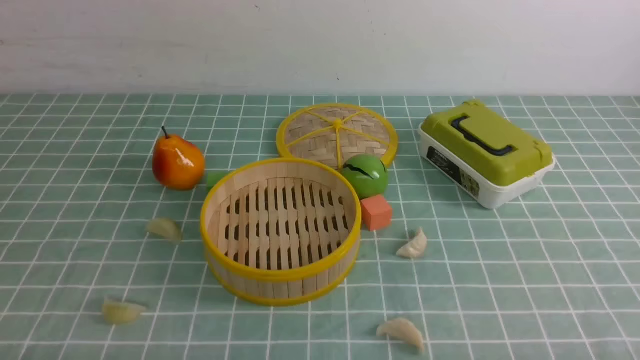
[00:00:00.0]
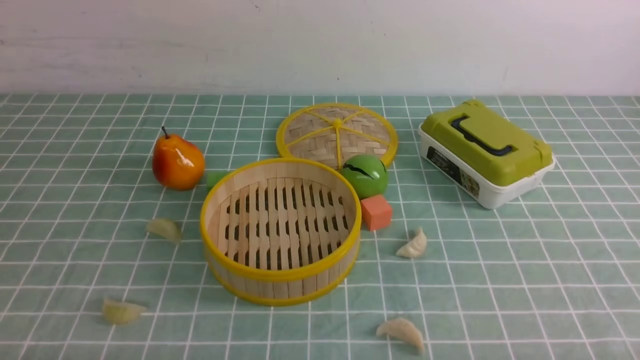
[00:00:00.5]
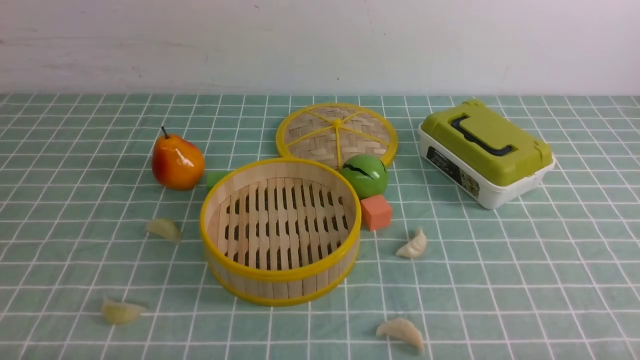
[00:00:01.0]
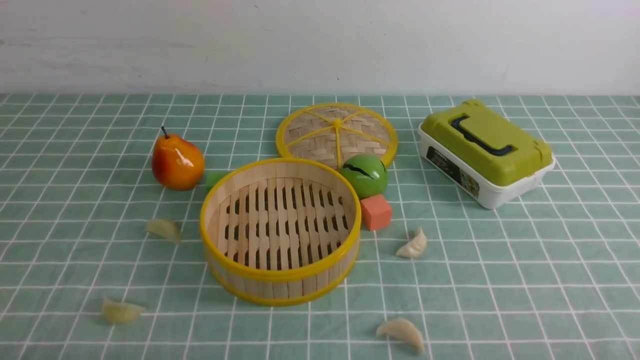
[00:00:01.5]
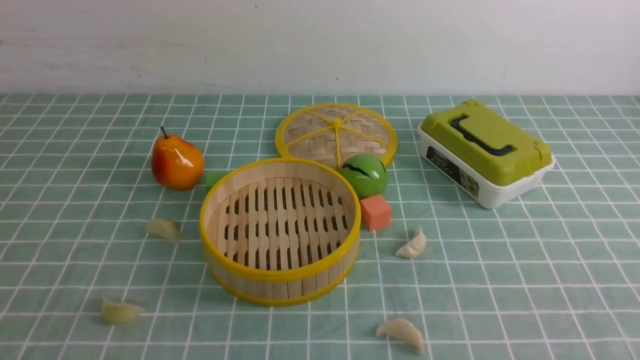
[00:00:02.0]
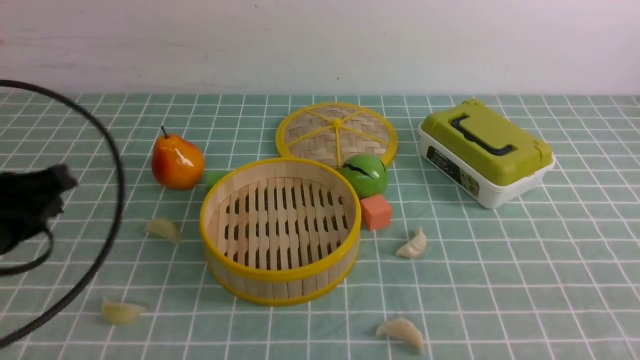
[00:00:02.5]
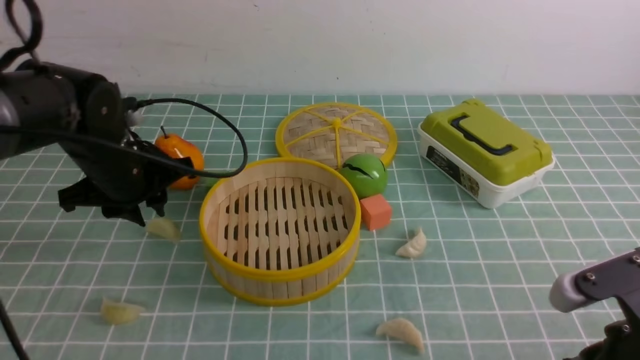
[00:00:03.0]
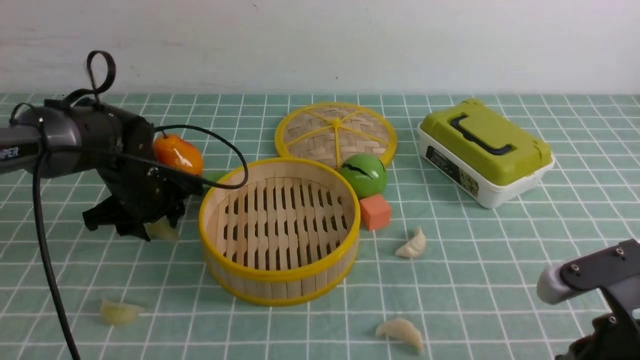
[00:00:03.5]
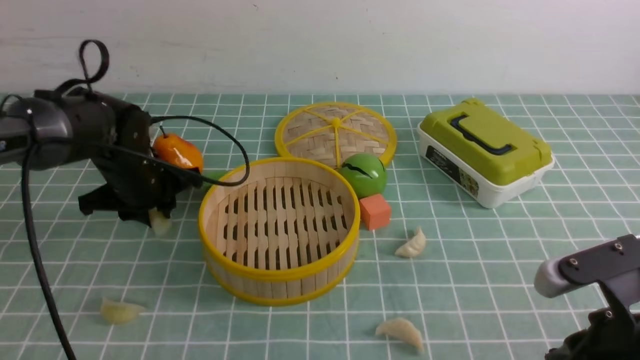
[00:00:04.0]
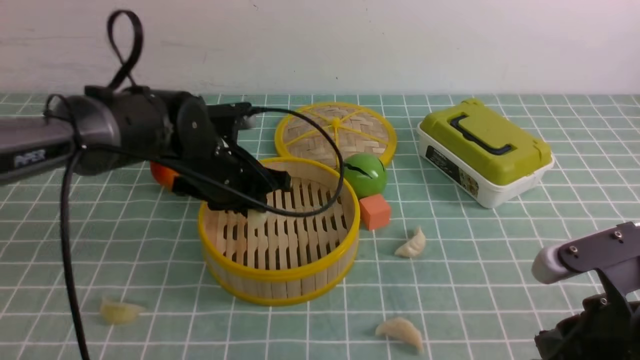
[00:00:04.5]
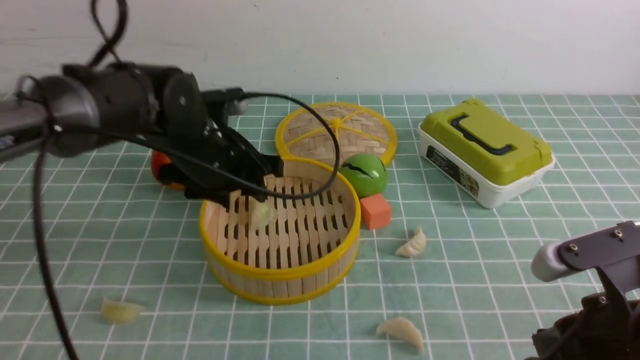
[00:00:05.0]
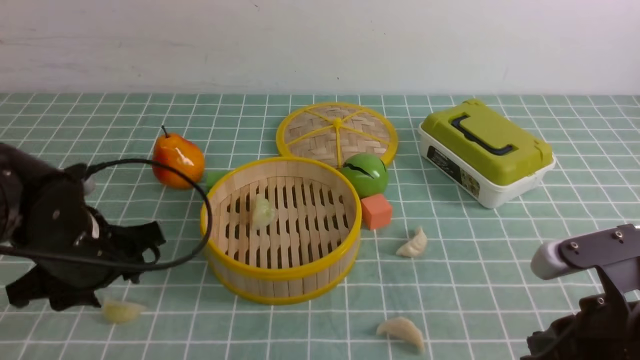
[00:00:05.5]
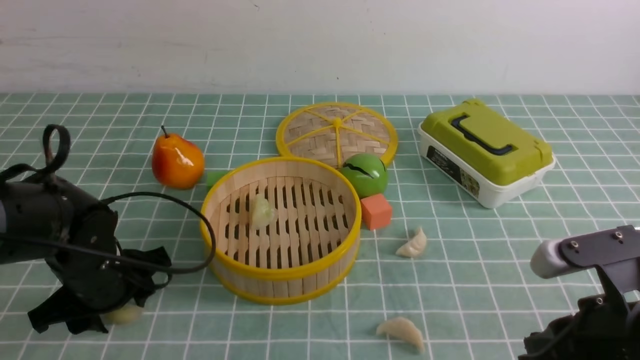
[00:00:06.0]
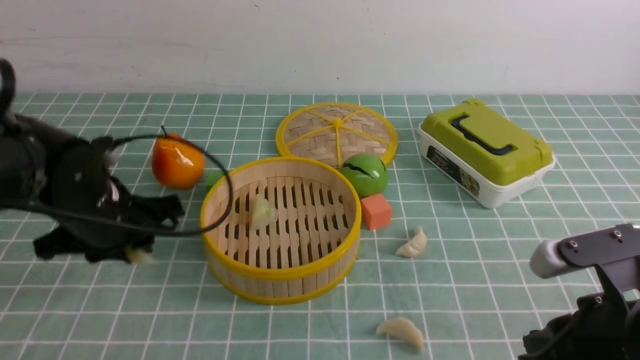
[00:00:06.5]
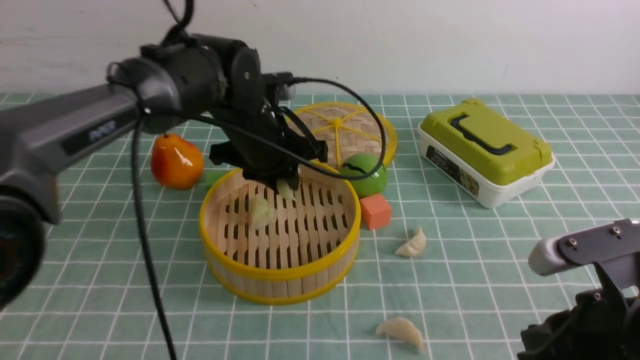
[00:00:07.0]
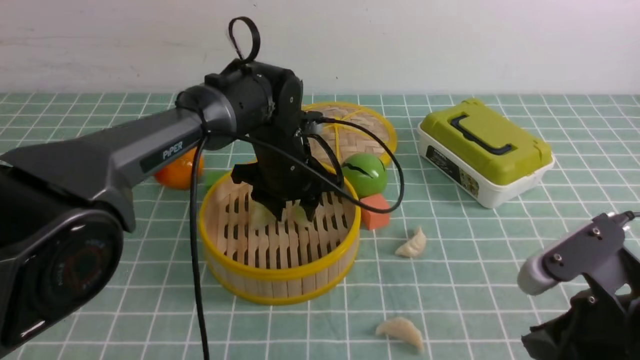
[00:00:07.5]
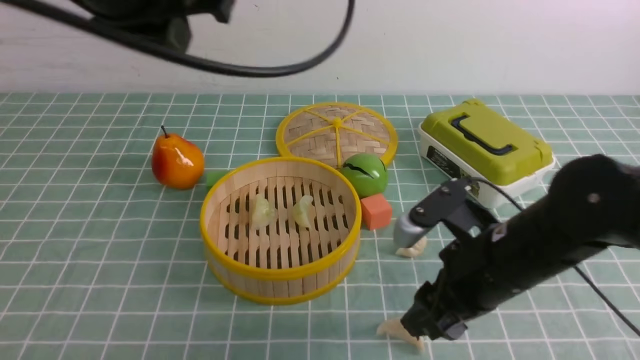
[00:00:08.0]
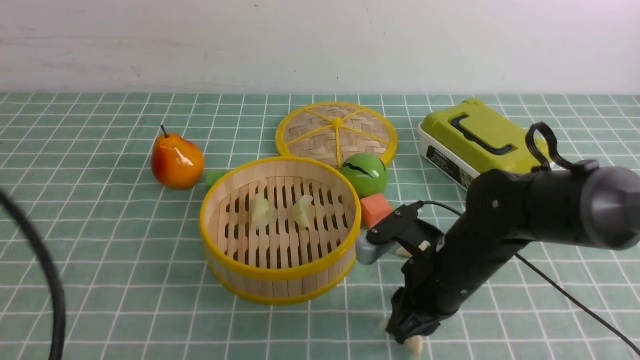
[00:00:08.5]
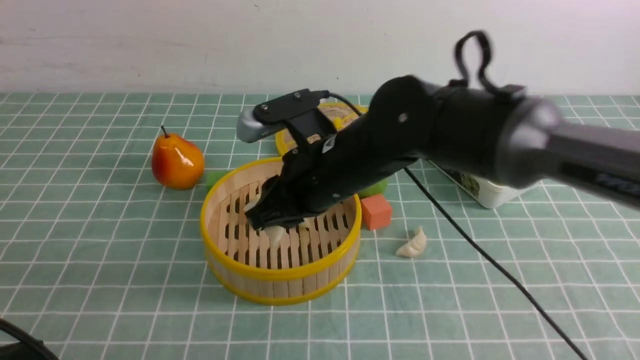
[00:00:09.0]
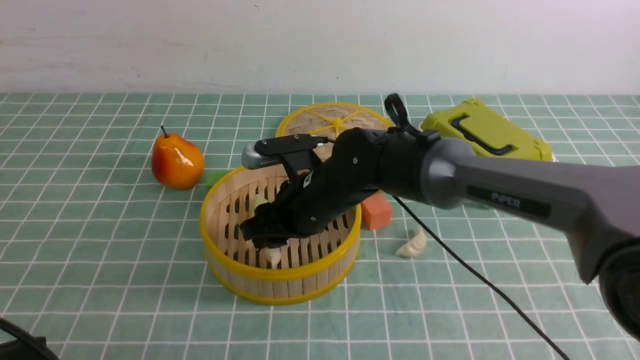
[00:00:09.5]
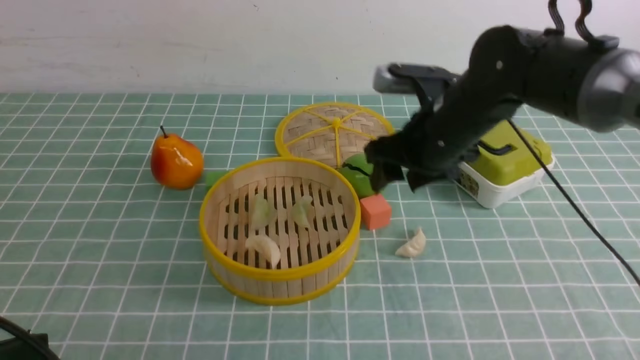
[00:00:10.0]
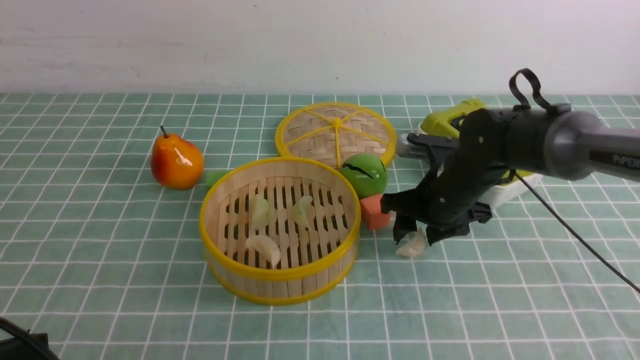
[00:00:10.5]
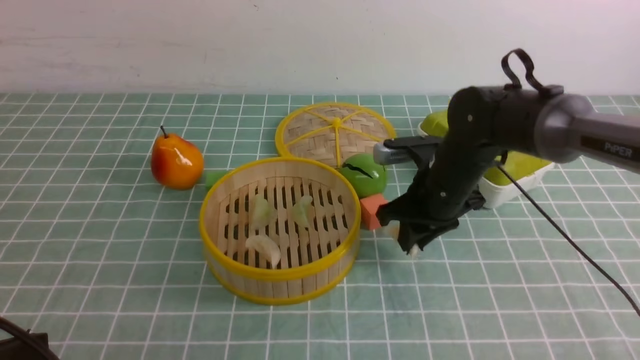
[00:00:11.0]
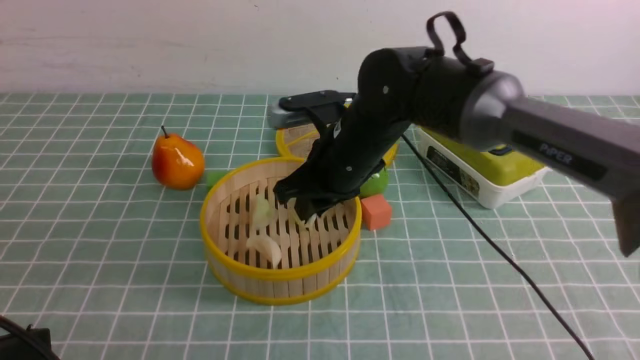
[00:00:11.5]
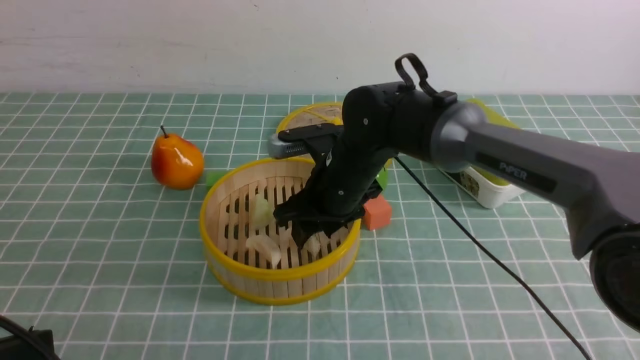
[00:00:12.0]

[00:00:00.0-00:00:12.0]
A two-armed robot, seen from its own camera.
Task of the whole recording: put the dumplings into the steamer on the table with the blue tablecloth.
Step, 00:00:00.0 to 00:00:03.5: use the left arm to grab a dumpling.
Step, 00:00:04.0 to 00:00:05.0: use the left arm to put the dumpling into the steamer.
Step, 00:00:05.5 to 00:00:06.0: use the left arm to grab a dumpling.
Step, 00:00:06.5 to 00:00:07.5: use the left arm to put the dumpling into the steamer.
Step, 00:00:08.5 to 00:00:09.5: use the right arm to put the dumpling into the steamer.
Step, 00:00:10.0 to 00:00:10.5: use the right arm to grab a dumpling.
00:00:02.0 to 00:00:04.0: The right gripper travels forward, to the left and downward by about 15 cm, while the left gripper is displaced forward by roughly 35 cm.
00:00:04.0 to 00:00:06.0: The left gripper travels backward by roughly 10 cm, and opens.
00:00:06.0 to 00:00:08.0: The right gripper is displaced forward and to the left by approximately 10 cm, and opens up. Meanwhile the left gripper is displaced upward by approximately 30 cm, and closes.
00:00:08.0 to 00:00:10.0: The left gripper moves downward, backward and to the left, about 30 cm; the right gripper travels forward by roughly 15 cm, travels to the left and back again, roughly 15 cm each way, and closes, then opens again.
00:00:10.0 to 00:00:12.0: The right gripper travels to the left by approximately 10 cm, and closes and opens again.

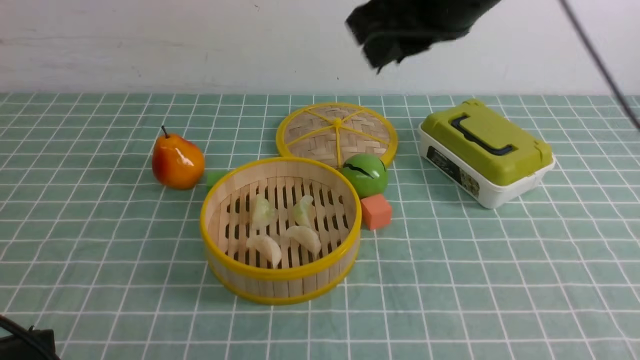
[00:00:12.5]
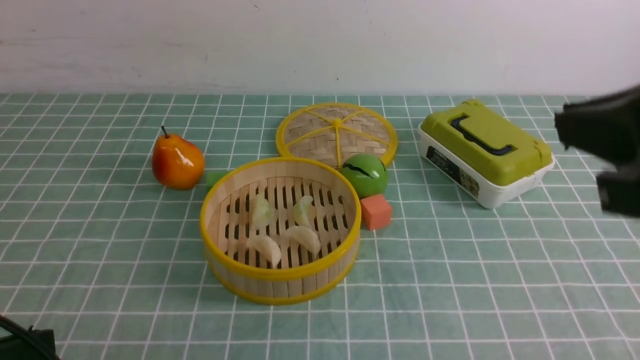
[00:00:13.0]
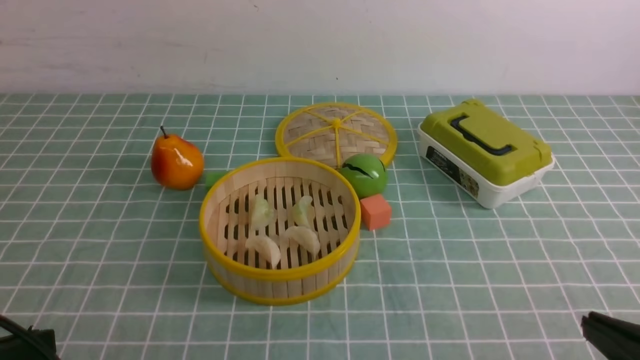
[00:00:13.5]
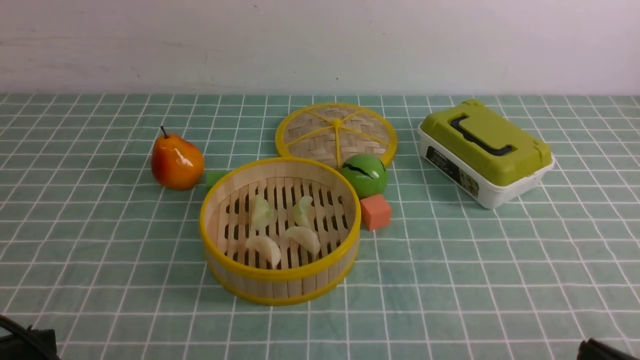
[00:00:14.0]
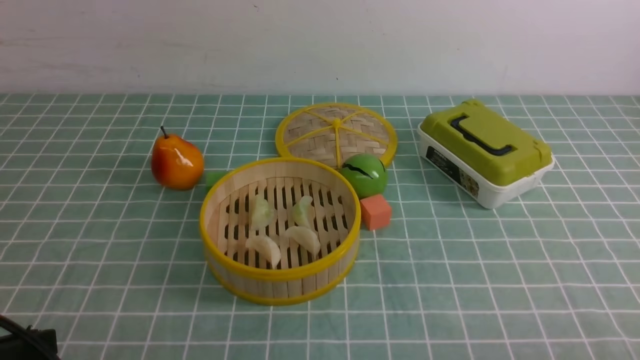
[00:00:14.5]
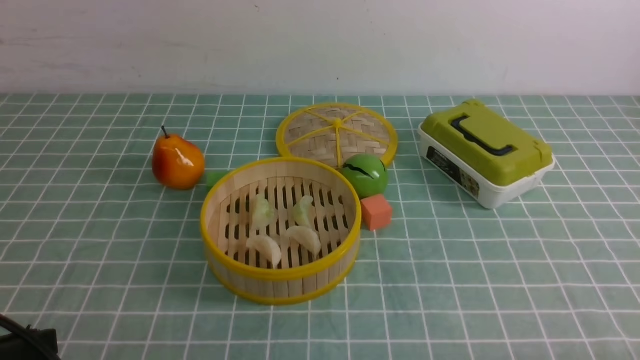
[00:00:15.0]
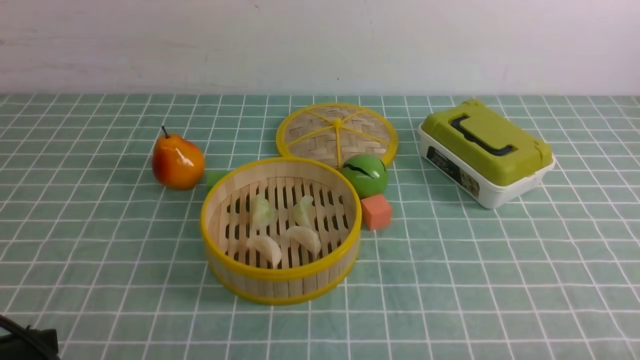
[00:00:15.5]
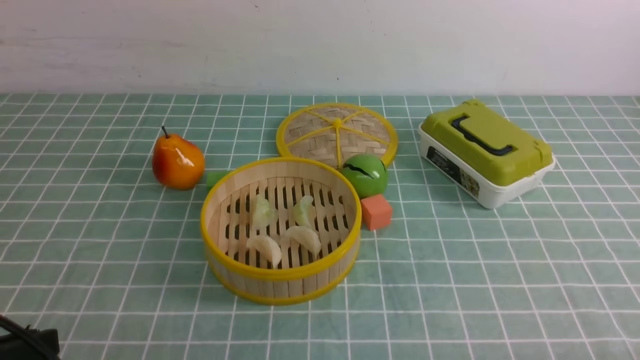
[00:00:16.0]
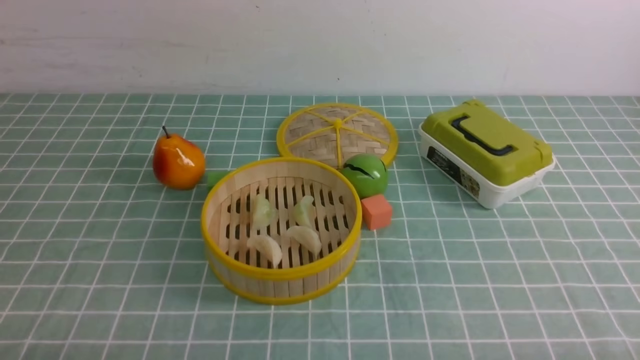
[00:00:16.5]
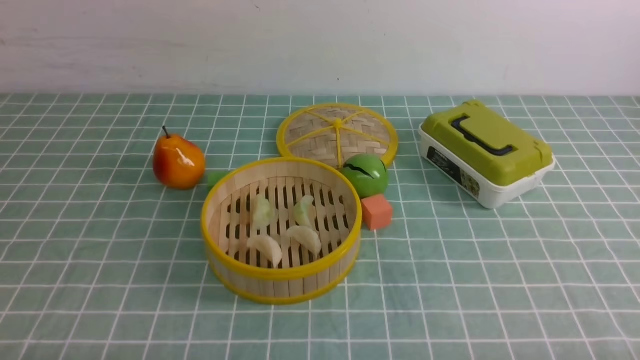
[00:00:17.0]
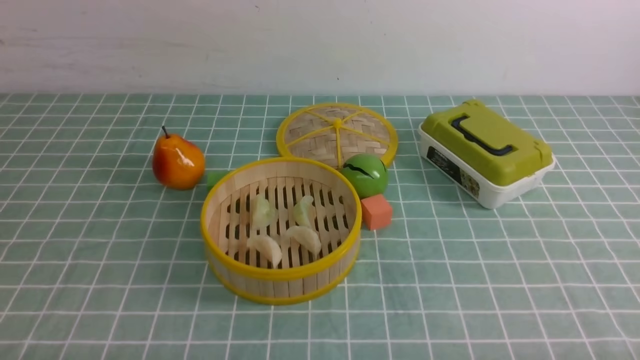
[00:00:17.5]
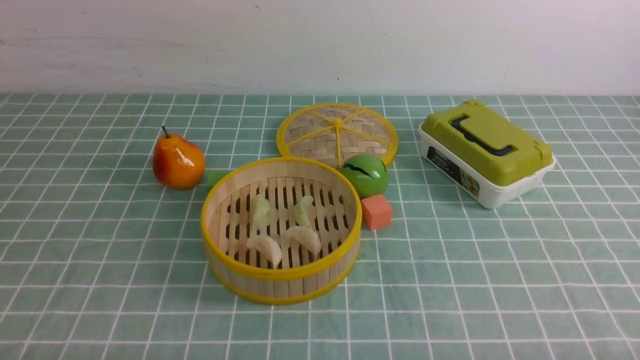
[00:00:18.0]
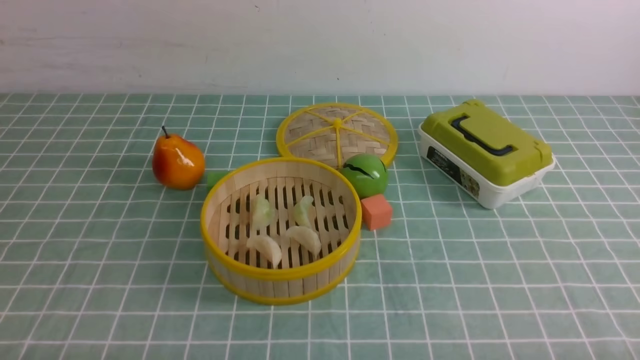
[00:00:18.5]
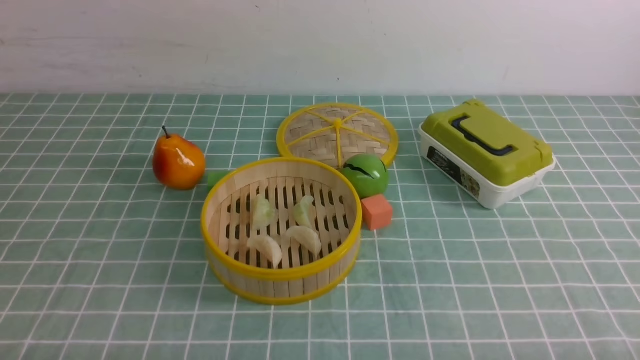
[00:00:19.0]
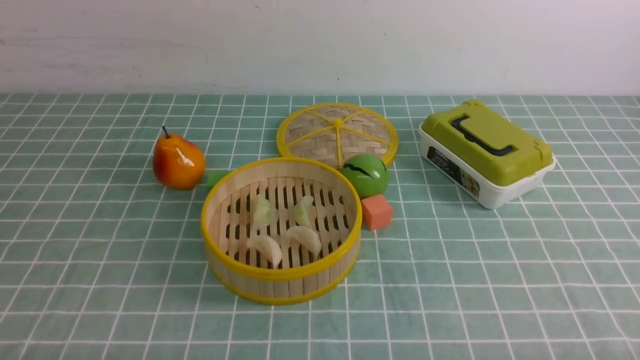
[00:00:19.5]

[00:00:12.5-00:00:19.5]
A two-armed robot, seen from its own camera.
Task of the whole recording: put the dumplings into the steamer on the table with the blue tablecloth.
00:00:12.5 to 00:00:14.5: The right gripper moves downward, backward and to the right, some 40 cm, and closes up.
00:00:16.0 to 00:00:17.5: The left gripper is displaced downward by approximately 10 cm.
00:00:17.5 to 00:00:19.5: The two grippers keep their place.
